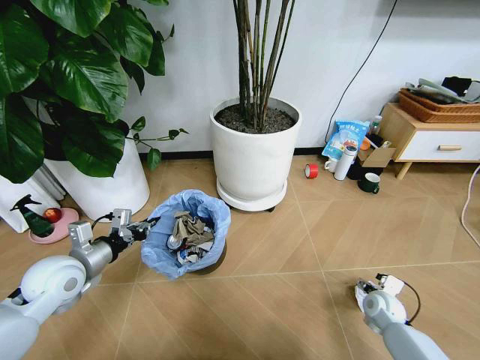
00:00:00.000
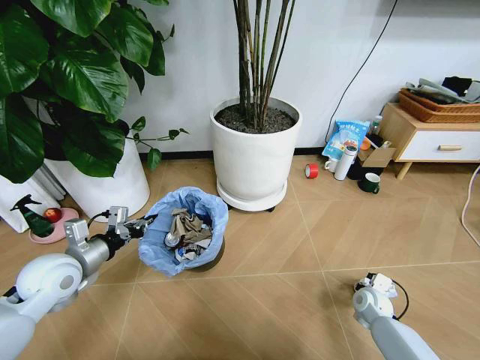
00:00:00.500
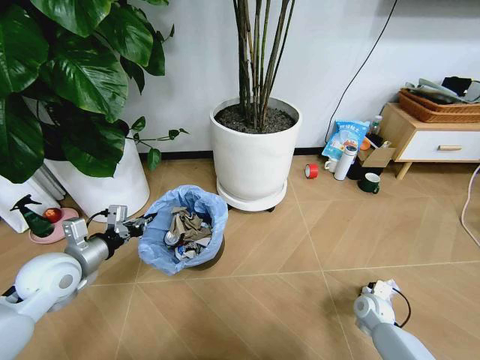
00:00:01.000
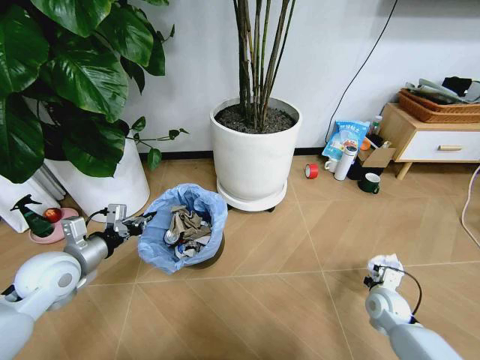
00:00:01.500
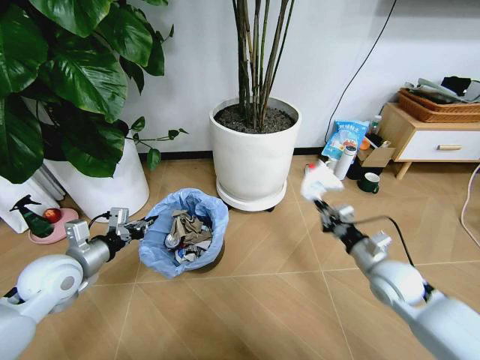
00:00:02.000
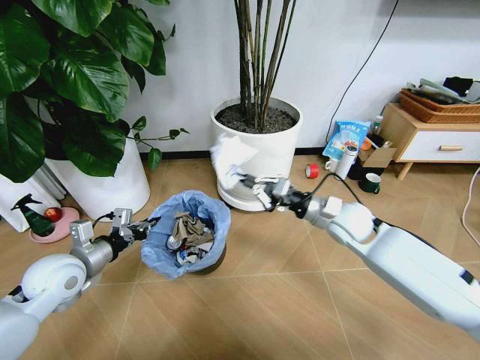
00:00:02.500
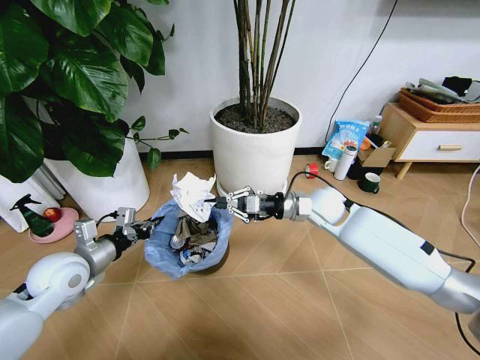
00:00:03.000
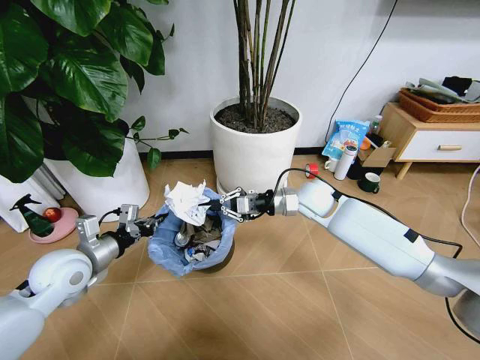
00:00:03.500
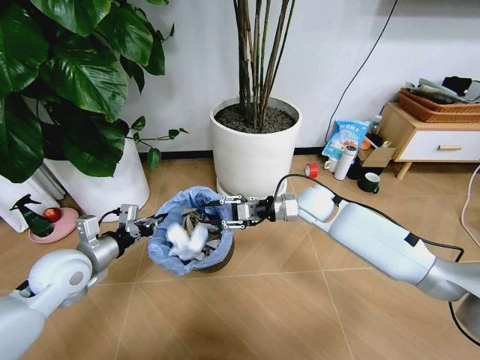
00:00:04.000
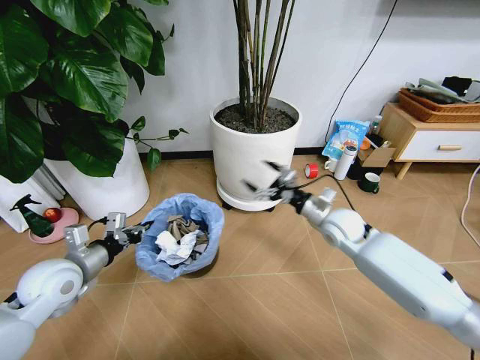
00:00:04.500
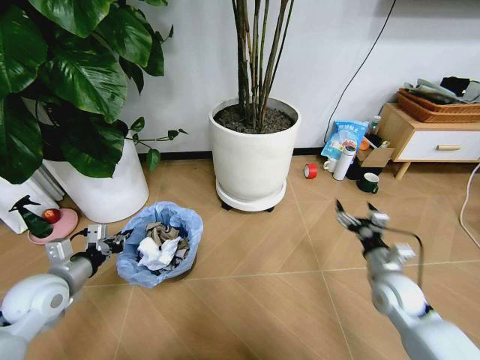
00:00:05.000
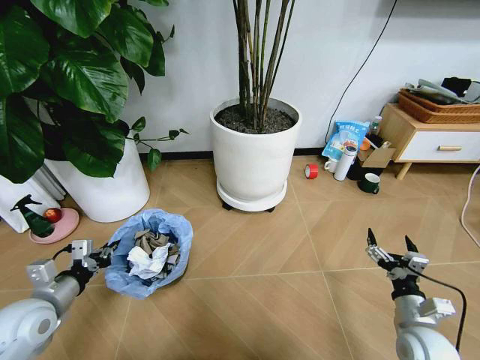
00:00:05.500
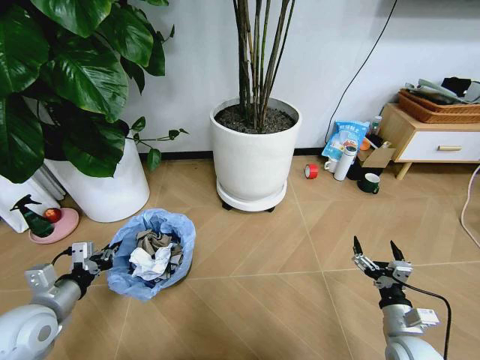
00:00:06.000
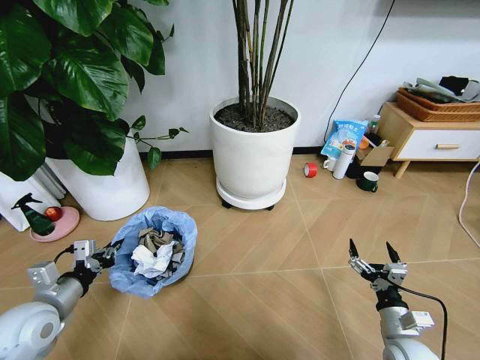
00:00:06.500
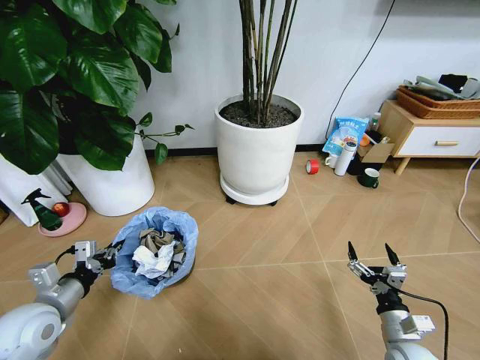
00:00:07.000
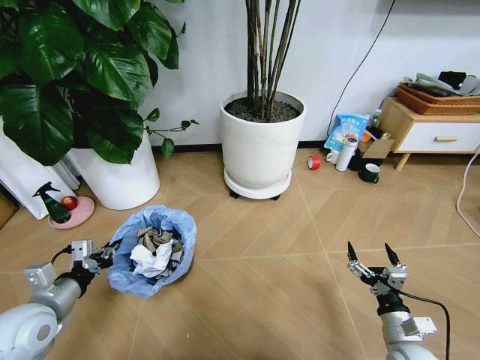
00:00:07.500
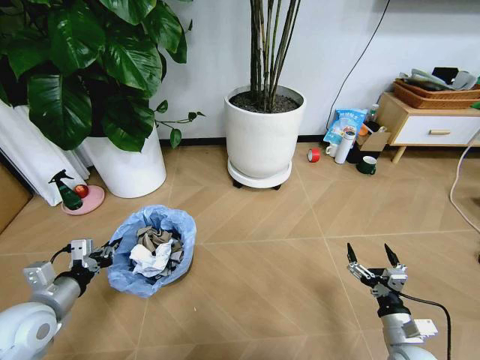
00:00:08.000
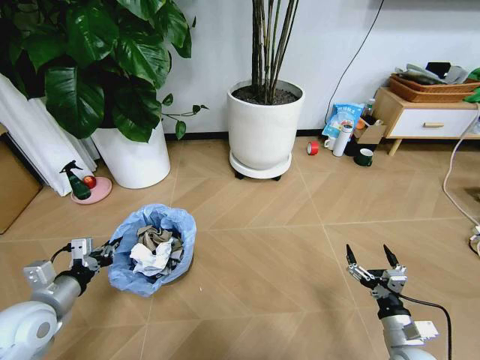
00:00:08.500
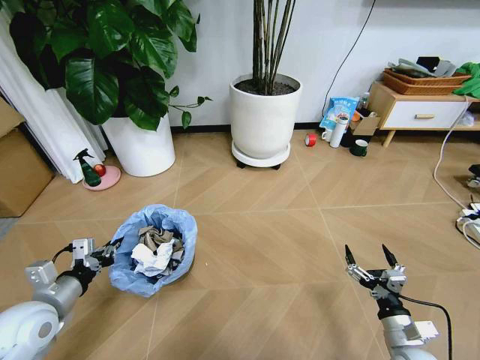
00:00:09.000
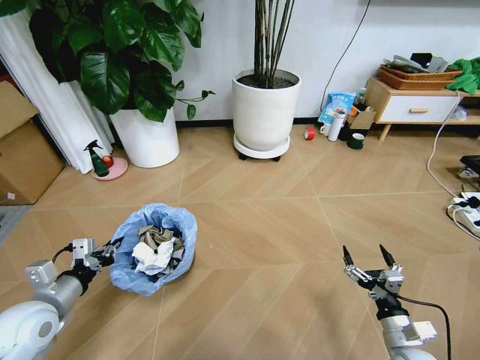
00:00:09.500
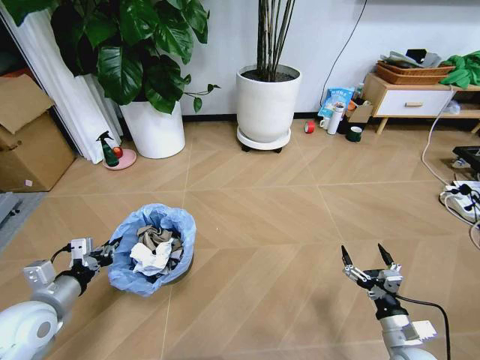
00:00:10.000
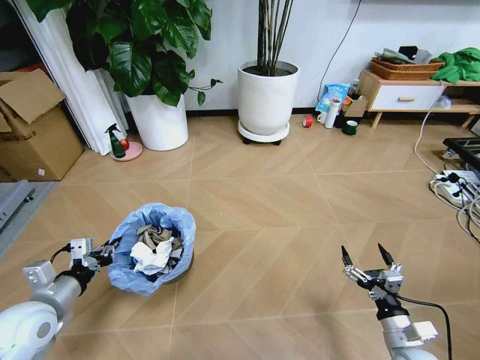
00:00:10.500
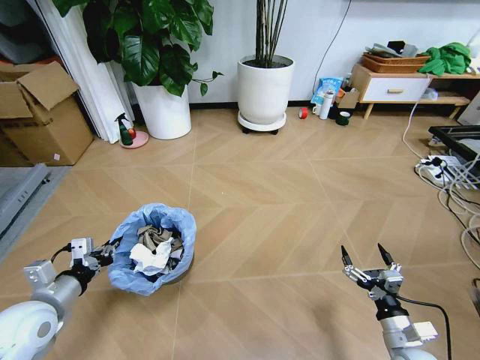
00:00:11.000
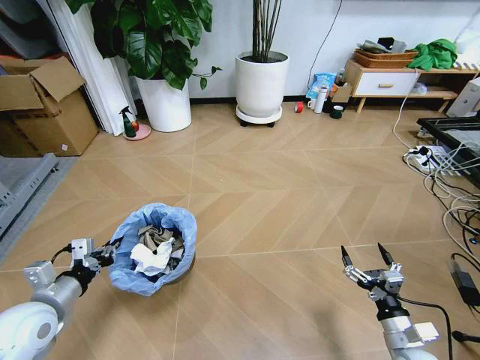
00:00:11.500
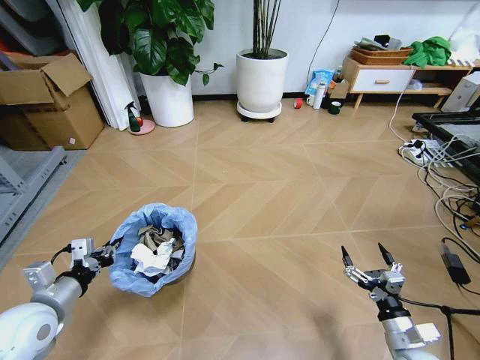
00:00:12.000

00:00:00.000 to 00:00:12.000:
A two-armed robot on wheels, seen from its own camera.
Task of the whole recording: Pick up the trash bin and place the garbage on the floor into it.
00:00:00.000 to 00:00:02.000: The right gripper moves upward, about 15 cm, and closes.
00:00:02.000 to 00:00:04.000: The right gripper shifts approximately 25 cm forward and to the left, and opens.
00:00:04.000 to 00:00:06.000: The left gripper travels backward and to the left by approximately 10 cm. Meanwhile the right gripper goes approximately 40 cm backward, to the right and downward, and opens.

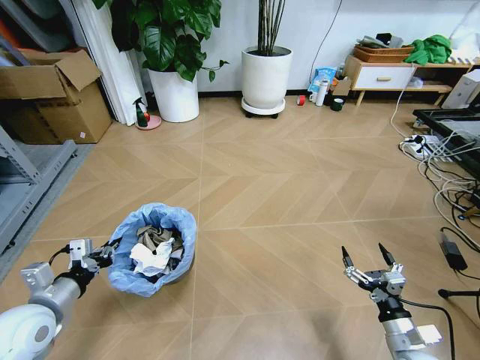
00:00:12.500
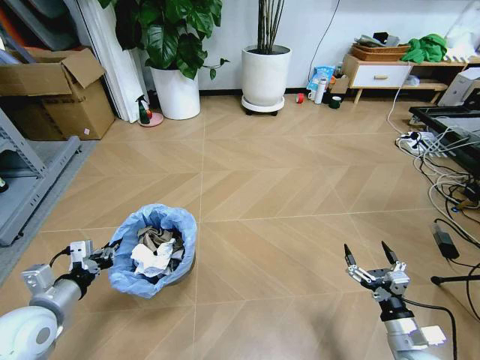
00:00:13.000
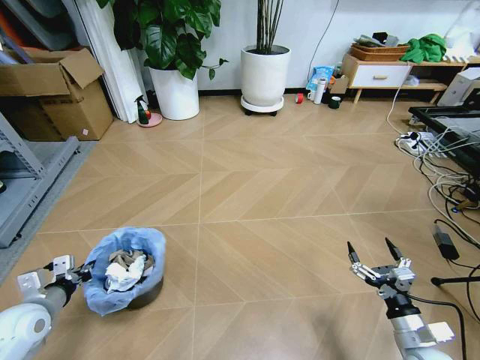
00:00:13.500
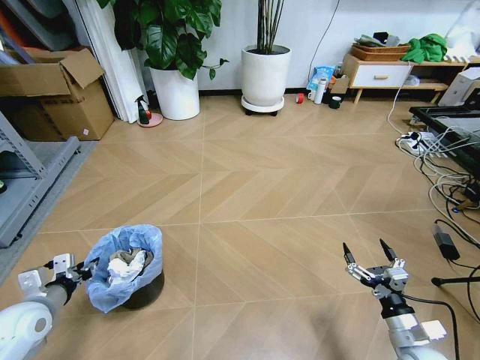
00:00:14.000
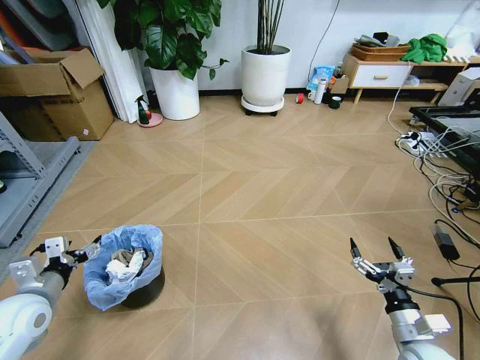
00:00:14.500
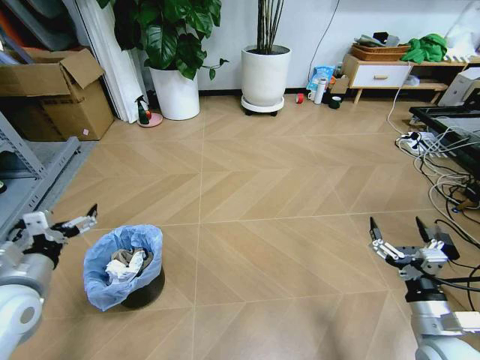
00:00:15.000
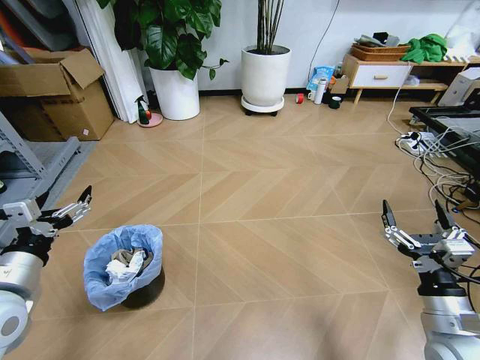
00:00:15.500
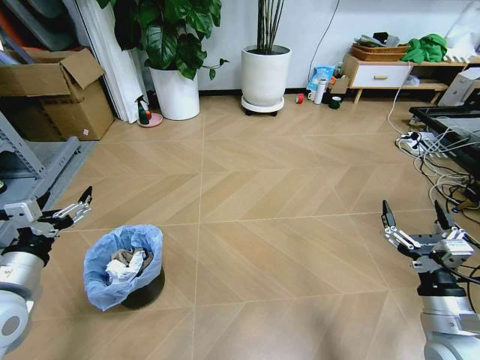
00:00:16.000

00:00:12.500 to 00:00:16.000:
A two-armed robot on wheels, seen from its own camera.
Task of the whole recording: Pick up the trash bin and place the garbage on the floor into it.
00:00:12.500 to 00:00:14.500: The left gripper opens up.
00:00:14.500 to 00:00:16.000: Both grippers move upward, some 10 cm.
